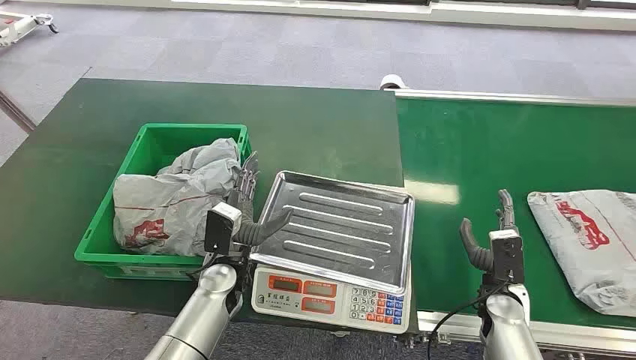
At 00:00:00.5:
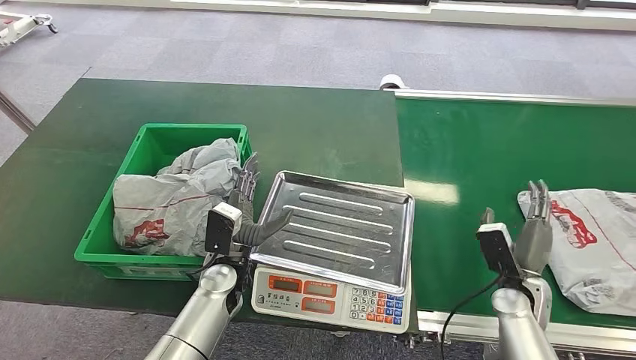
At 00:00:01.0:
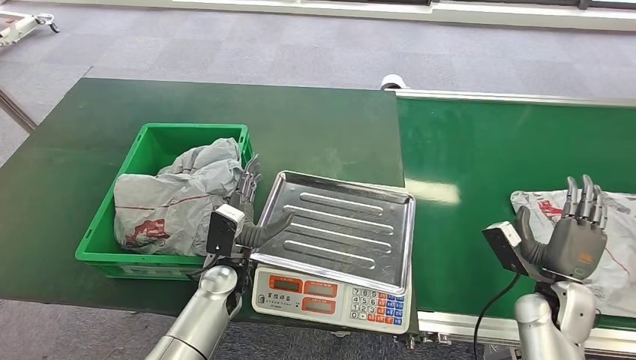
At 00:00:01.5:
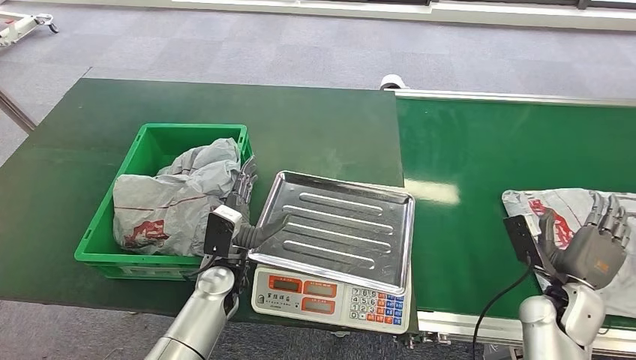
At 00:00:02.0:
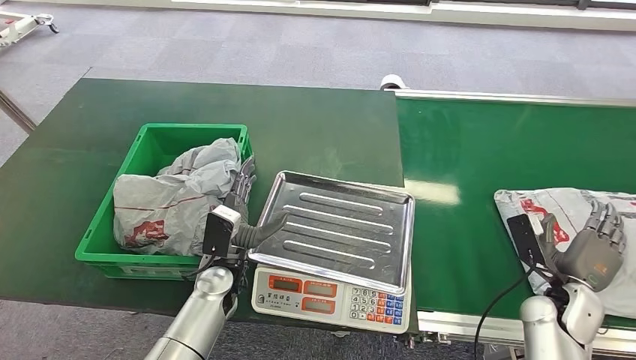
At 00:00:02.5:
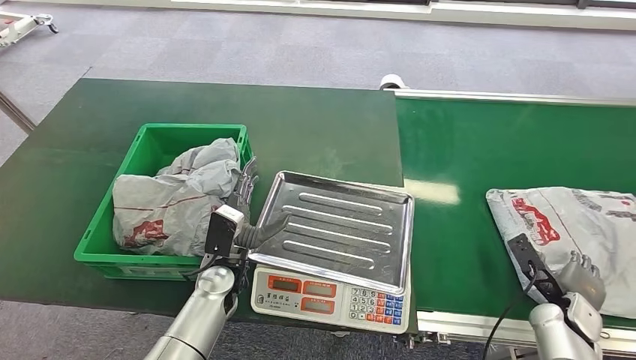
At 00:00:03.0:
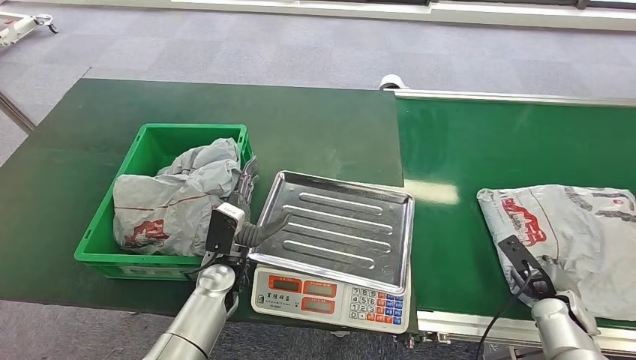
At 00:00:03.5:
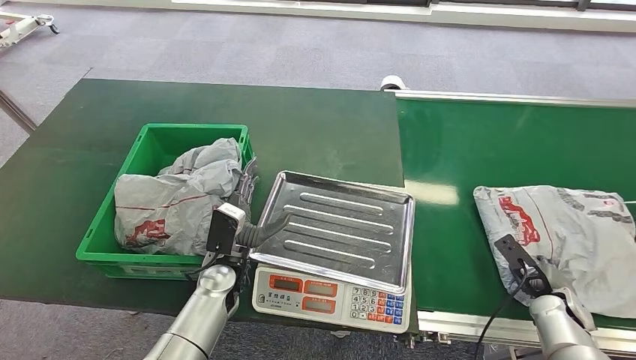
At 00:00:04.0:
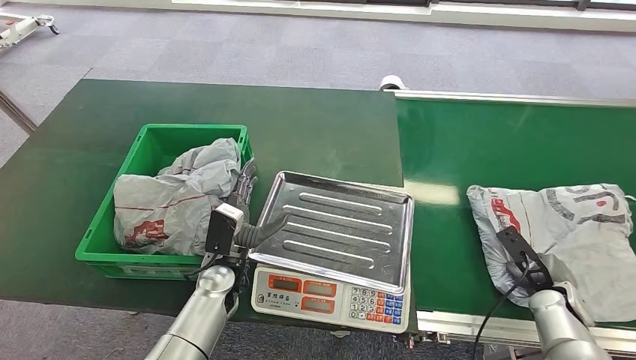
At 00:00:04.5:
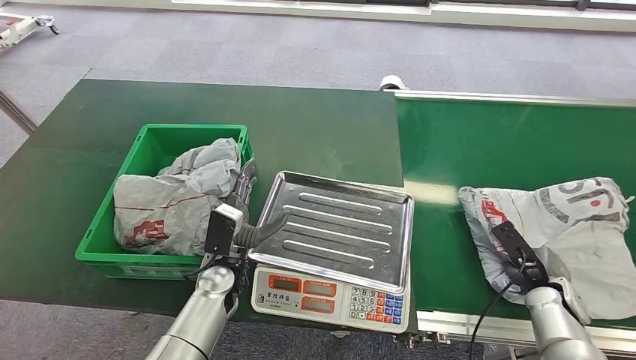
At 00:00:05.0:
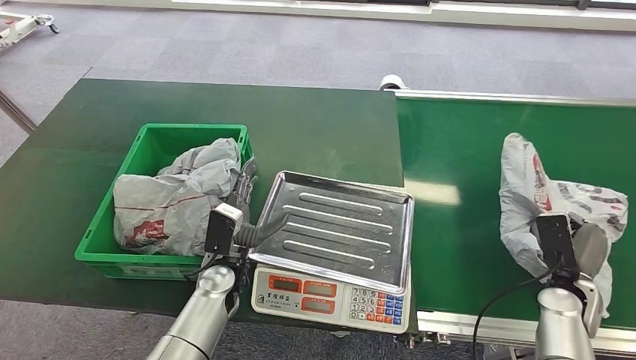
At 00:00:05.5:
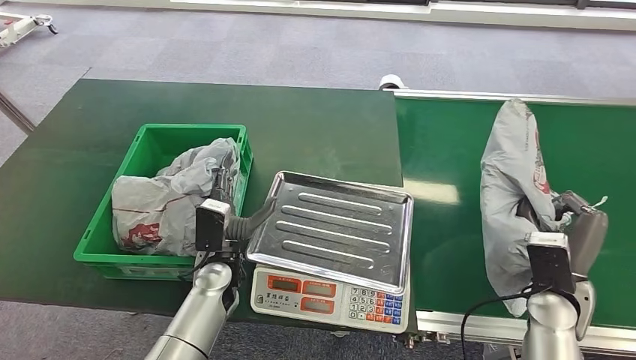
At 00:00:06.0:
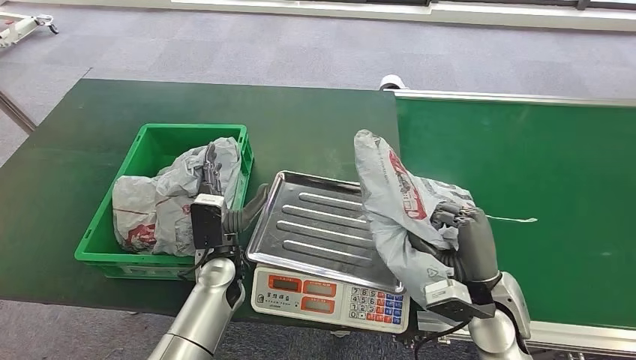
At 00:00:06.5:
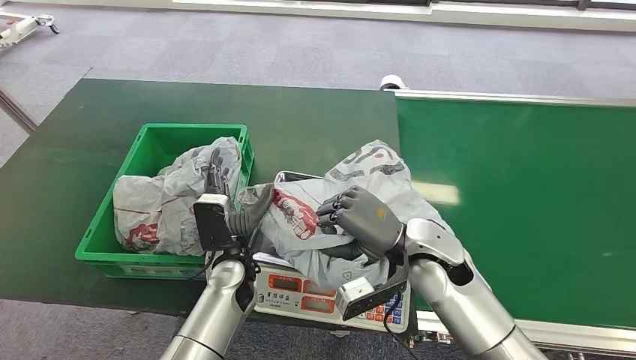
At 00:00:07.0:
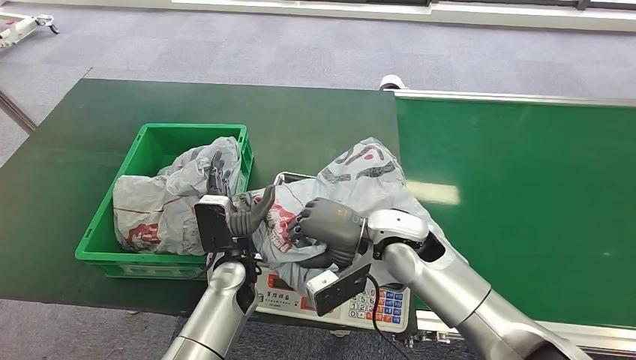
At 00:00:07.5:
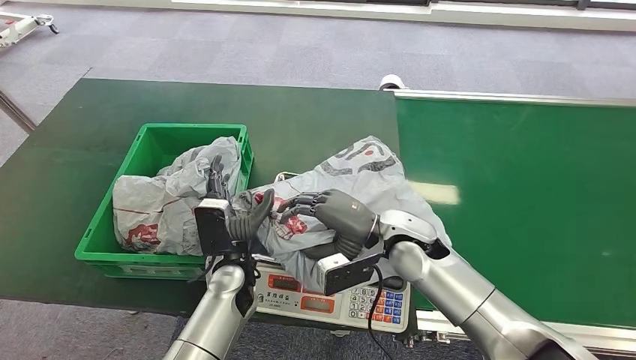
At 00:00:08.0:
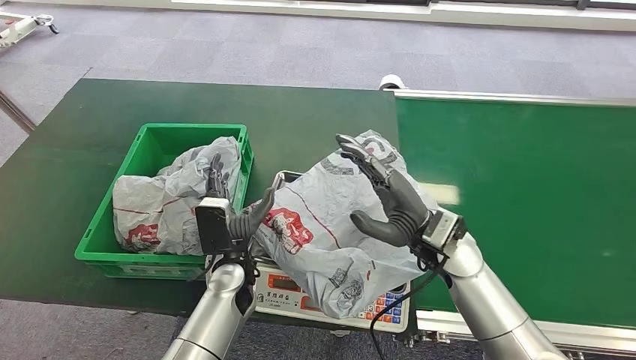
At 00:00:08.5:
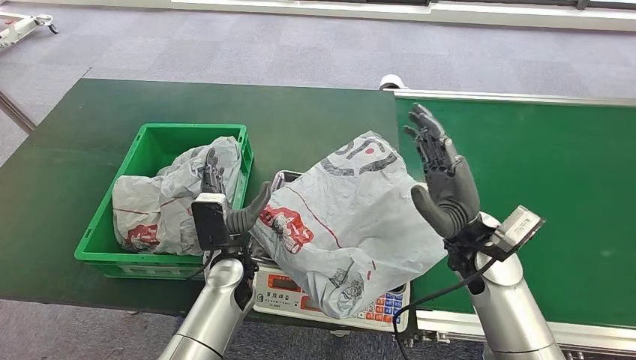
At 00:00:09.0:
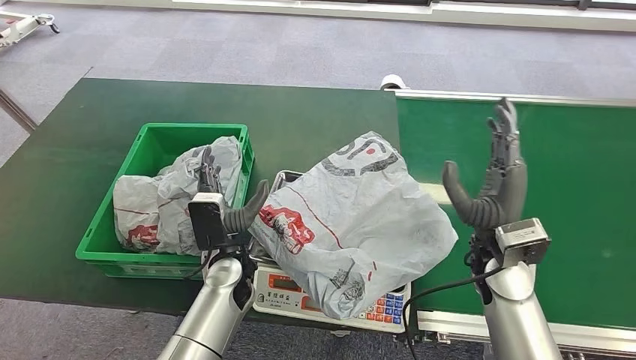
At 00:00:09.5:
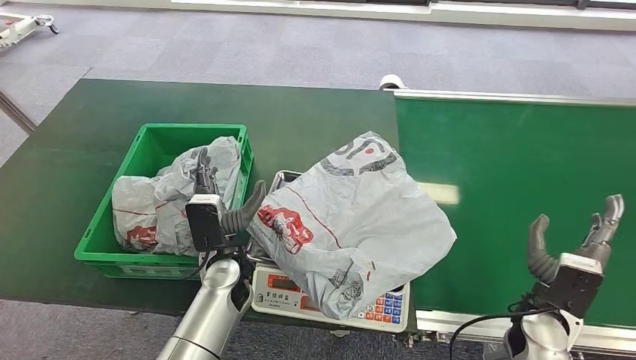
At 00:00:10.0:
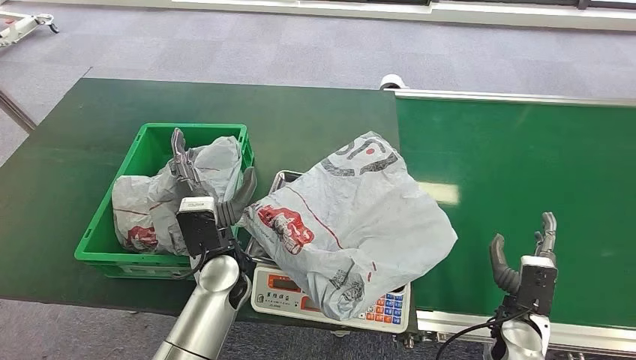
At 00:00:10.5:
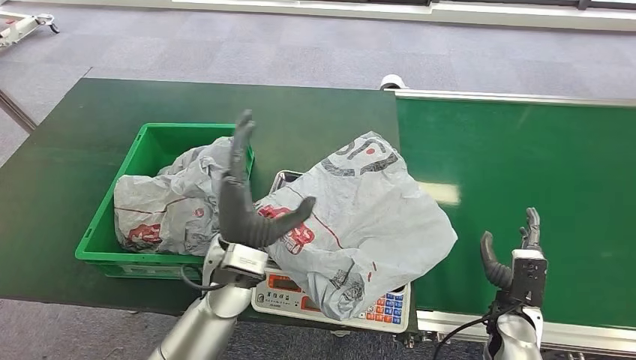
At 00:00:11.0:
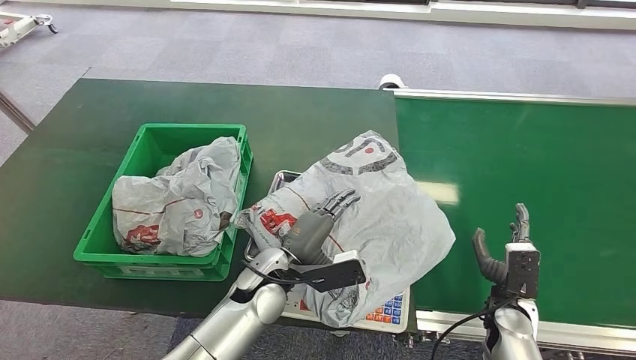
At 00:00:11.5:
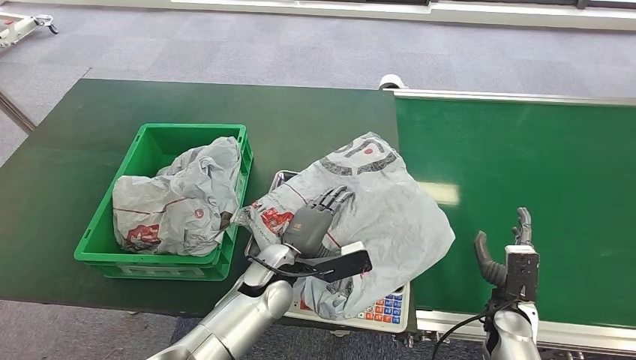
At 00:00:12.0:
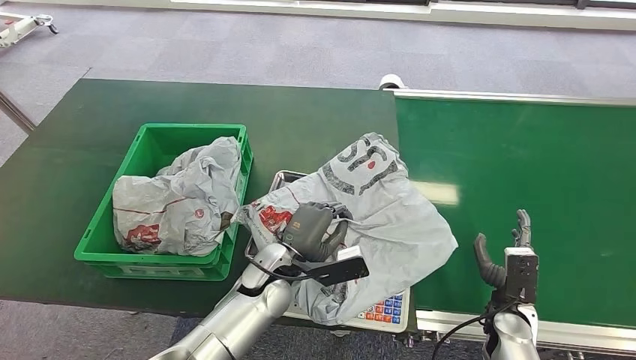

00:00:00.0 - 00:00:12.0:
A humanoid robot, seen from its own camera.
Step, 00:00:00.0 - 00:00:05.5: Pick up the package from the conveyor belt.
Step, 00:00:06.0 - 00:00:08.0: Place the package onto the inbound machine.
00:00:02.0 - 00:00:04.0: The right hand changes place by roughly 5 cm.
00:00:06.0 - 00:00:08.0: The right hand heads to the left and forward, covering about 10 cm.
00:00:08.0 - 00:00:10.0: The right hand shifts roughly 25 cm to the right, downward and backward.
00:00:10.0 - 00:00:12.0: The left hand goes some 5 cm to the right.

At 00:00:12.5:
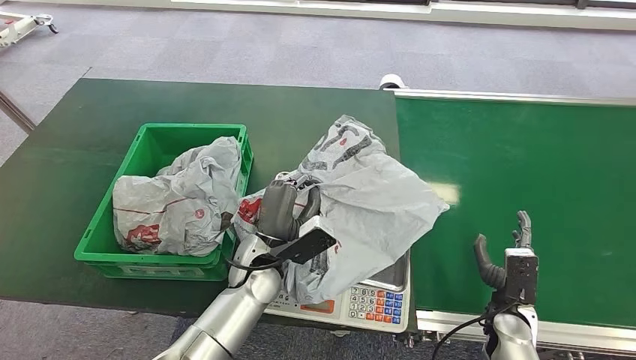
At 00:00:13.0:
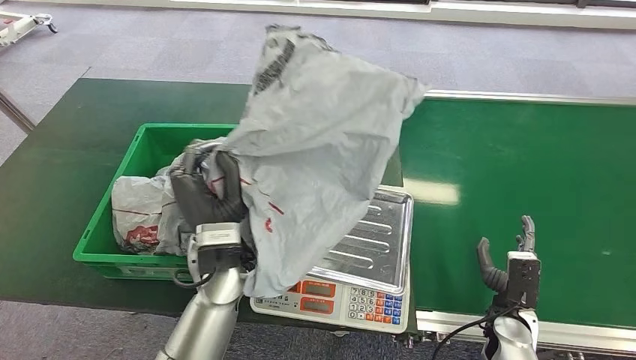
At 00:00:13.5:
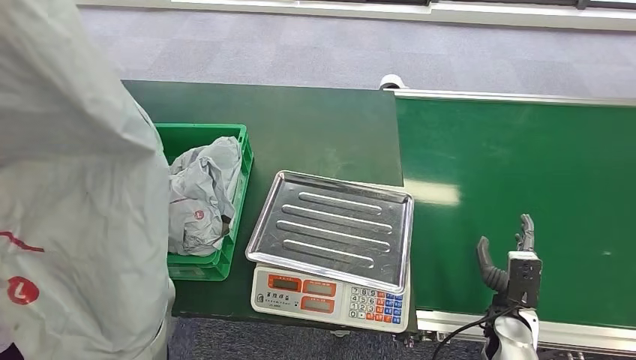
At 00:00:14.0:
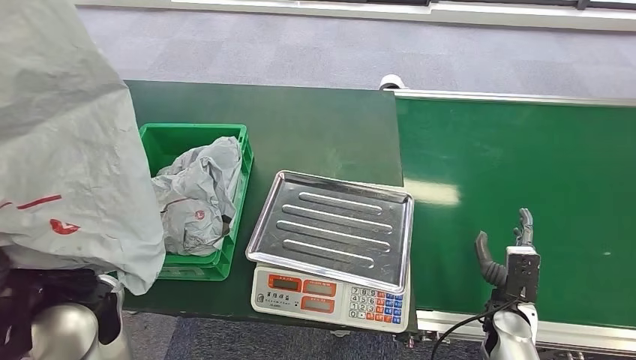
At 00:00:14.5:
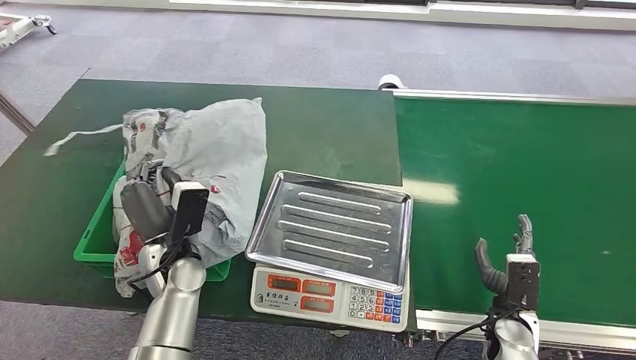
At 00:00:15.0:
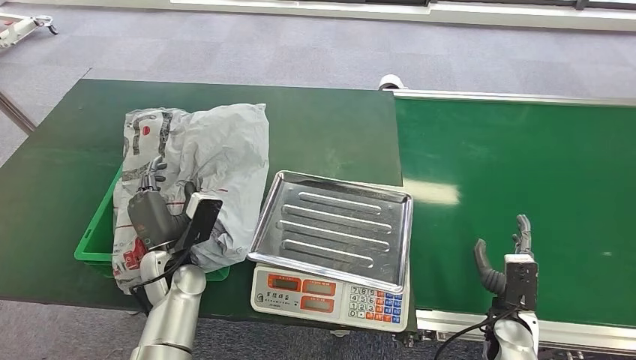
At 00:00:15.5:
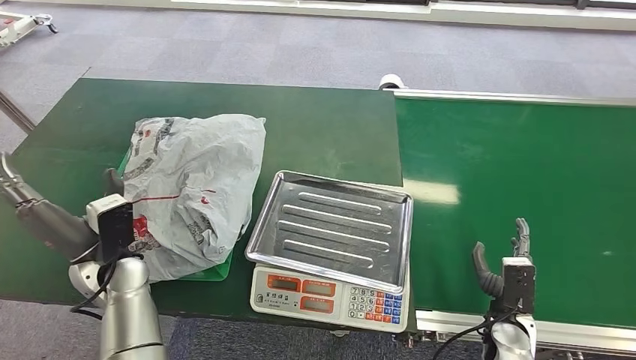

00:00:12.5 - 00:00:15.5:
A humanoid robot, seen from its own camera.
Step, 00:00:13.0 - 00:00:15.0: Place the package into the parcel locker.
